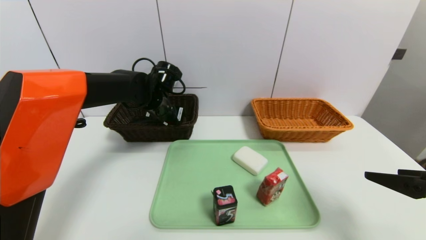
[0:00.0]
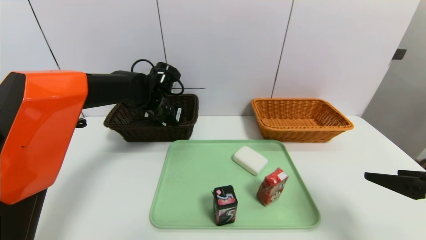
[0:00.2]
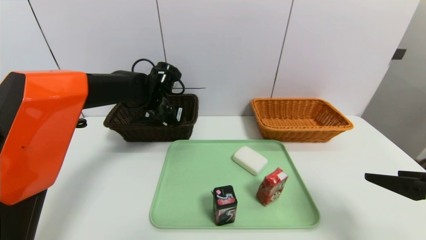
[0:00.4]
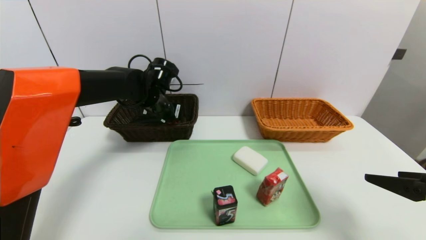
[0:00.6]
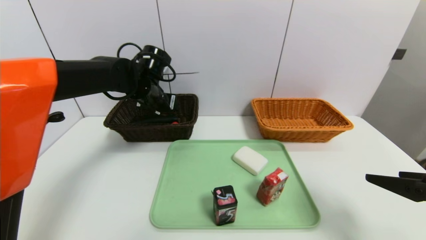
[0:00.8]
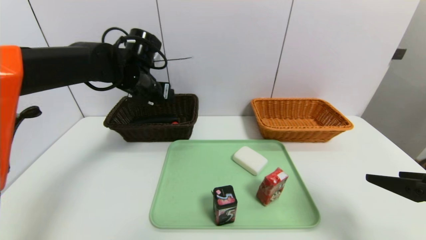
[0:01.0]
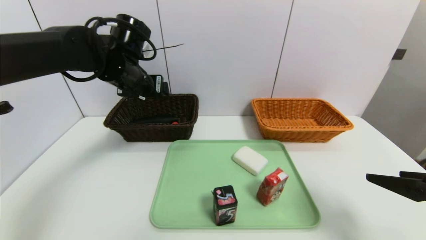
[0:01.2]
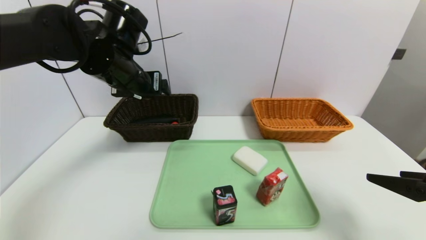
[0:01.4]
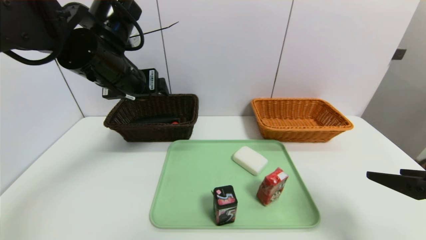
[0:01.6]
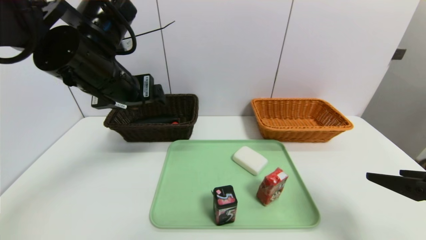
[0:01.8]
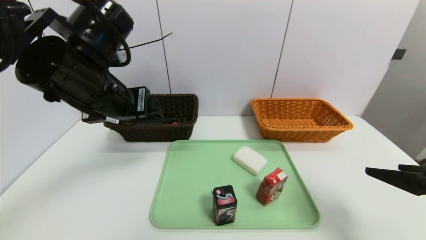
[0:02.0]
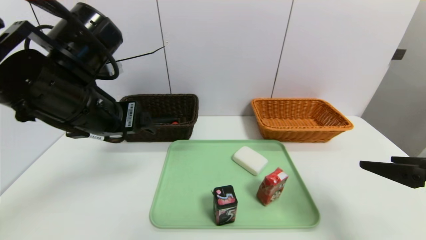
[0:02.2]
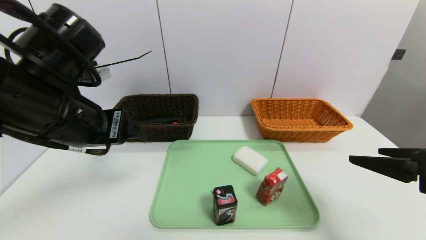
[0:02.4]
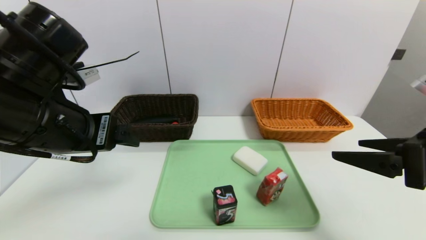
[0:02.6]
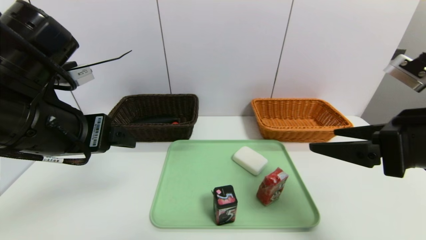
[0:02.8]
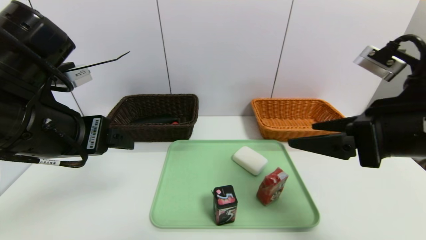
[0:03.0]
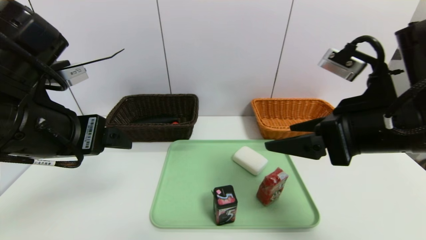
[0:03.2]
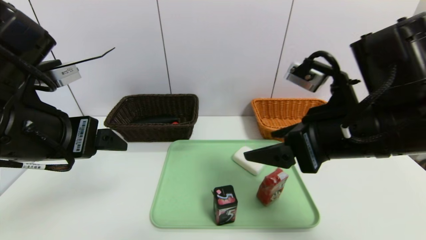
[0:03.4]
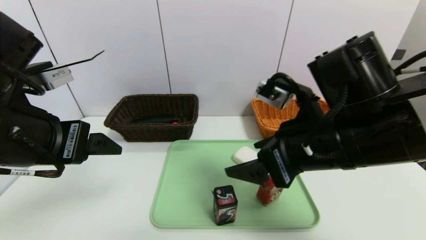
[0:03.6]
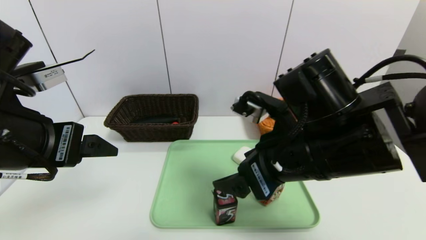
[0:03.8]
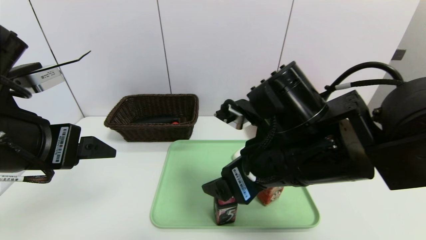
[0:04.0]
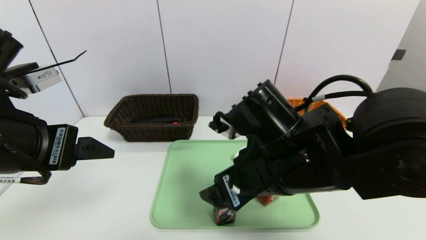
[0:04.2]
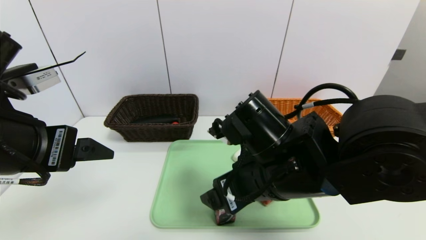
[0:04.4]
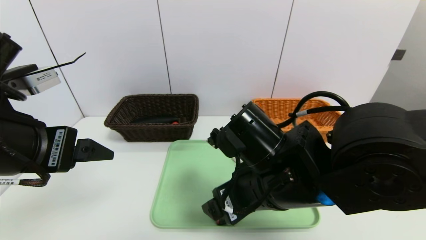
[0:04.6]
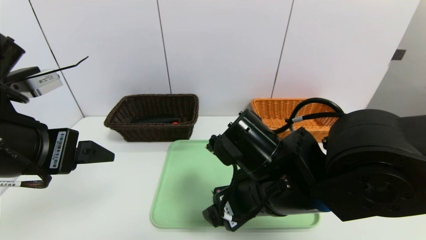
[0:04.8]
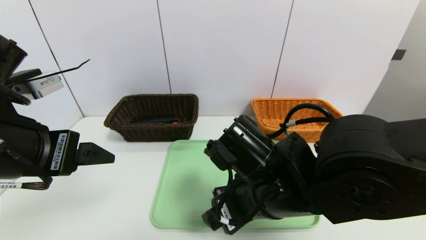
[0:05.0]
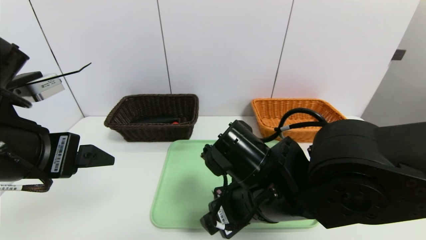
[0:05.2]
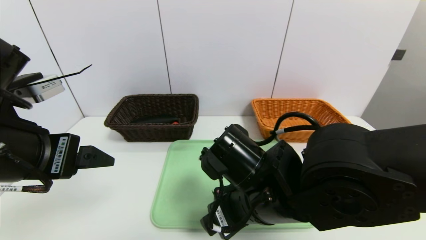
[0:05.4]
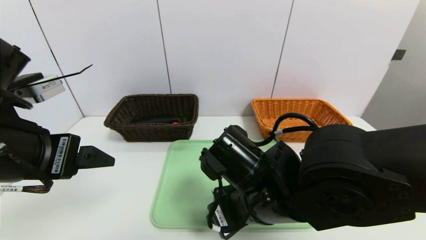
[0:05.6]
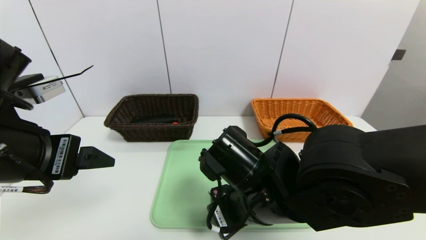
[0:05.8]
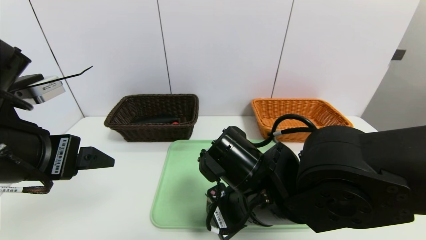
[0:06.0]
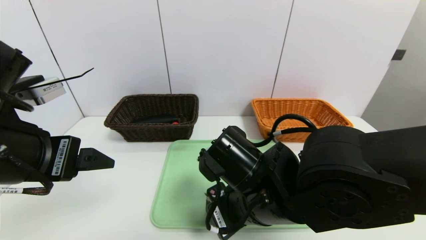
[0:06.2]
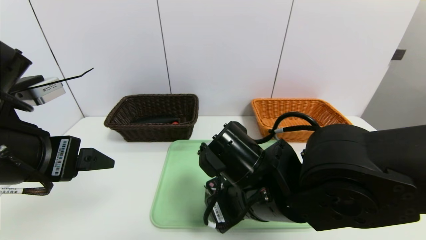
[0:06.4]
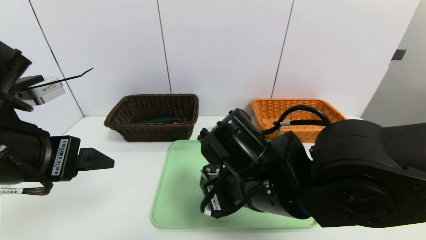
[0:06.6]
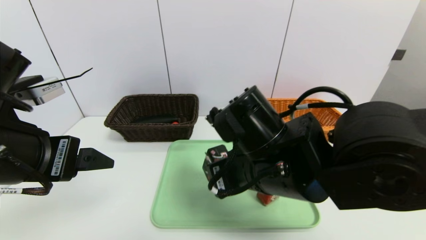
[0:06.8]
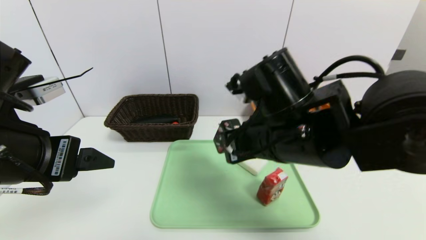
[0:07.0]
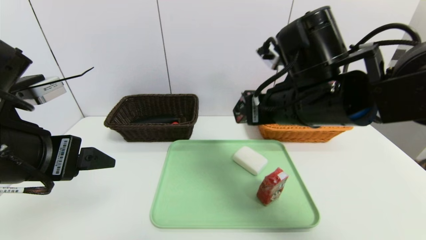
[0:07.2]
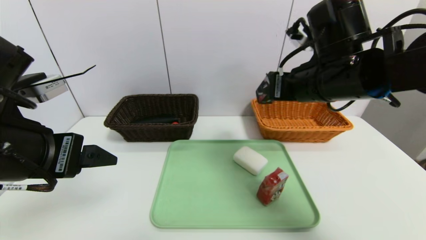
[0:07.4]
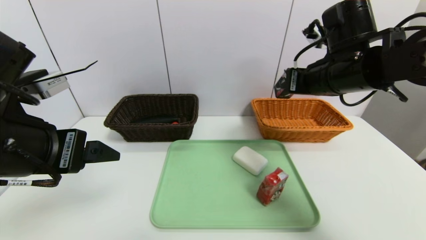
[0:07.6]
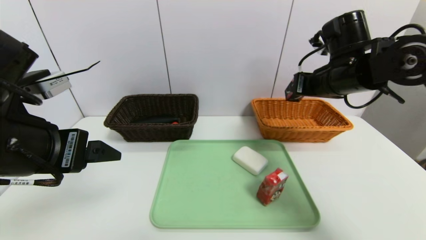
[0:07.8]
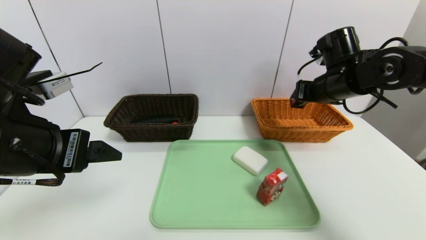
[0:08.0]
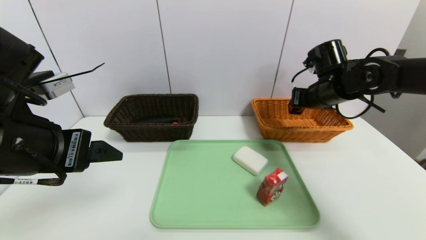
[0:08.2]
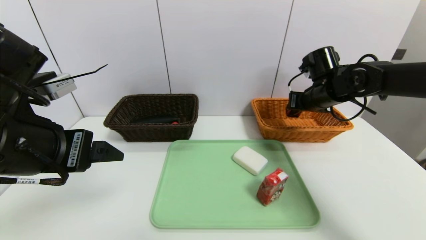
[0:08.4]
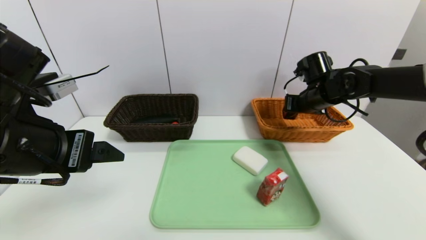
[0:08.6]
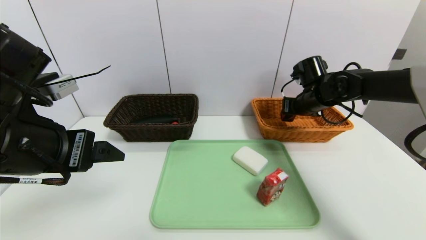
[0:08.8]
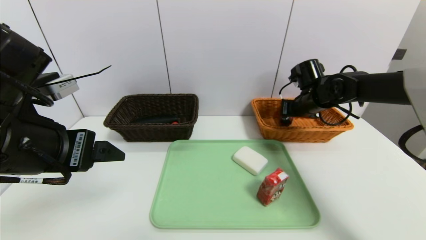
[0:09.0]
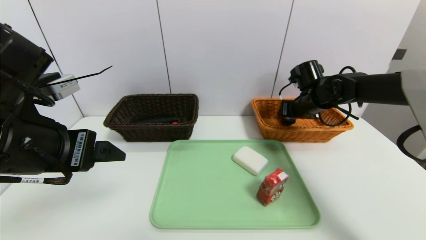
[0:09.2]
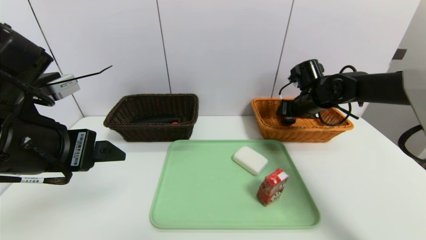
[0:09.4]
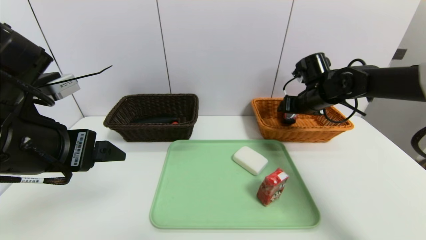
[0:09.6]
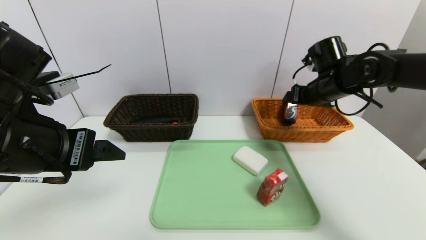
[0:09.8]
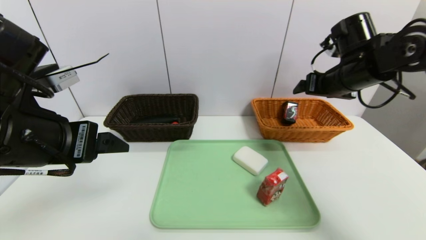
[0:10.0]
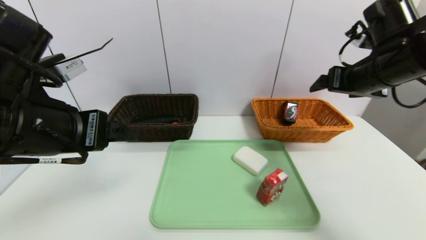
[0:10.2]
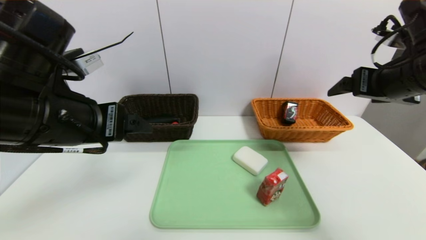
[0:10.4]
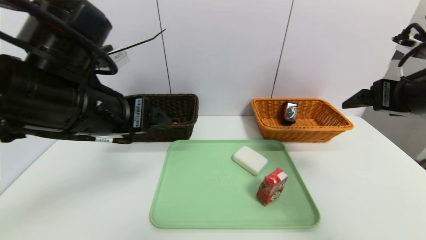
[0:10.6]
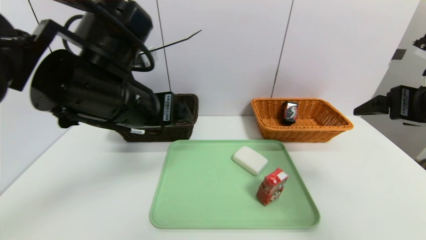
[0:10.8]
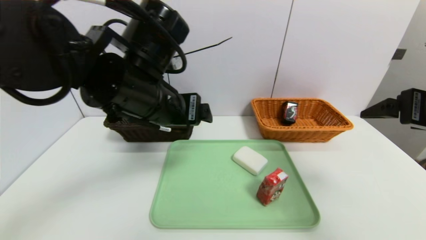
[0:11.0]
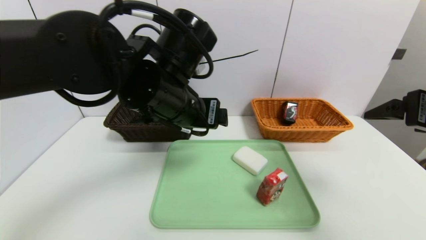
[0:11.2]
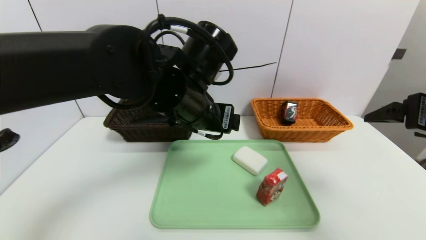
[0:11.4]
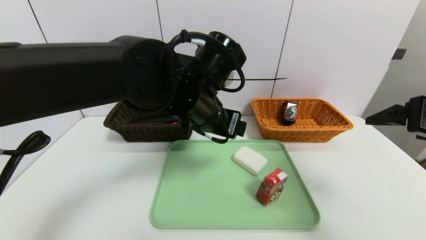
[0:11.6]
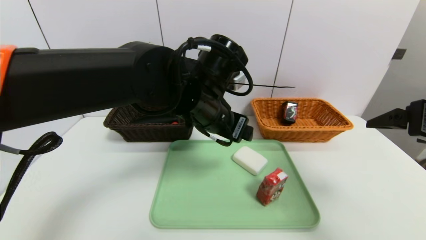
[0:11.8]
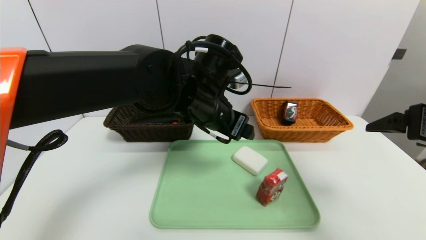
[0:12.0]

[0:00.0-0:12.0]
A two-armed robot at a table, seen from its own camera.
Task of the whole recording: place the food in the right basket with the right gripper, and place the non food items in the left basket with the left gripper.
Step, 0:01.2 to 0:10.0: Grasp the square chewing gum and put it in the right basket.
0:00.0 to 0:01.6: The left gripper is displaced upward and backward by roughly 15 cm, and opens its fingers.
0:01.6 to 0:03.0: The right gripper is displaced to the left, upward and forward by approximately 15 cm, while the left gripper shifts some 10 cm backward.
0:03.0 to 0:04.4: The right gripper goes approximately 15 cm to the left and downward.
0:04.4 to 0:06.0: The right gripper closes its fingers.
0:06.0 to 0:07.6: The right gripper heads to the right, forward and upward, covering about 25 cm.
0:07.6 to 0:09.0: The right gripper travels forward and downward by approximately 15 cm.
0:09.0 to 0:10.4: The right gripper shifts some 20 cm backward and upward, and opens up.
0:10.4 to 0:12.0: The right gripper goes roughly 10 cm backward. The left gripper heads to the right and forward, covering some 20 cm.

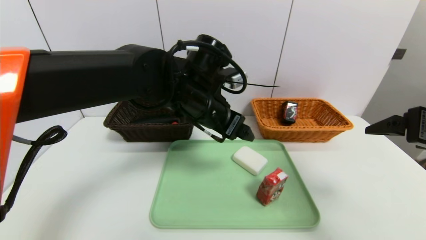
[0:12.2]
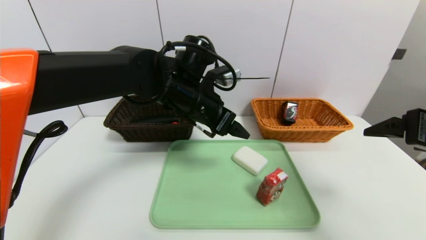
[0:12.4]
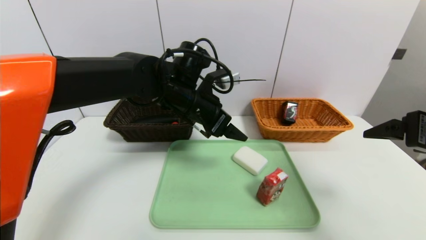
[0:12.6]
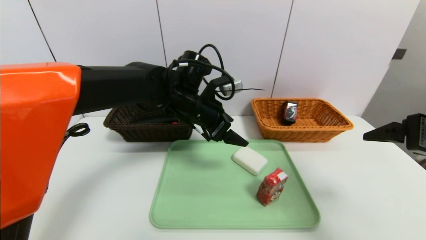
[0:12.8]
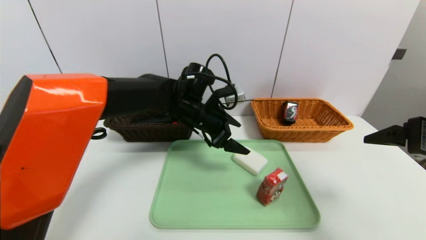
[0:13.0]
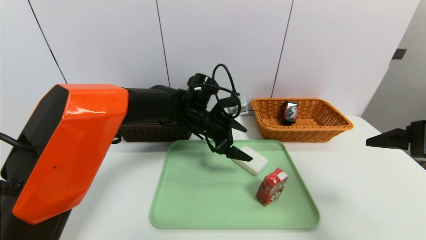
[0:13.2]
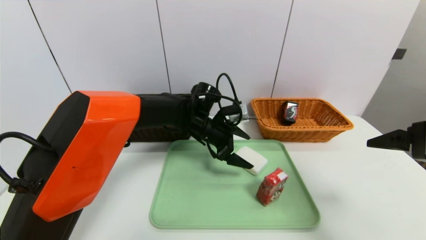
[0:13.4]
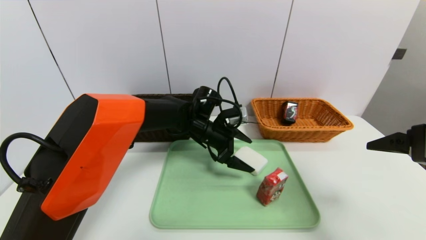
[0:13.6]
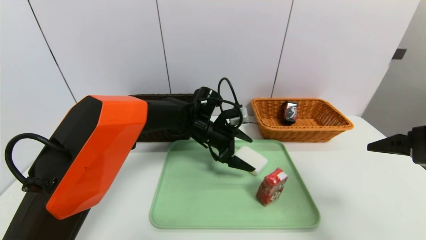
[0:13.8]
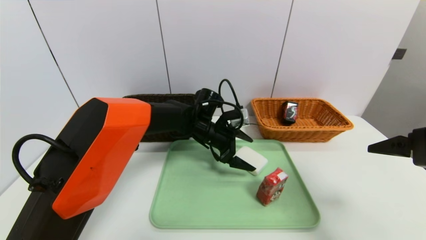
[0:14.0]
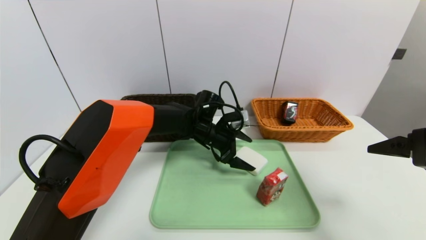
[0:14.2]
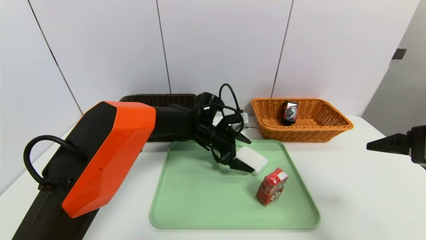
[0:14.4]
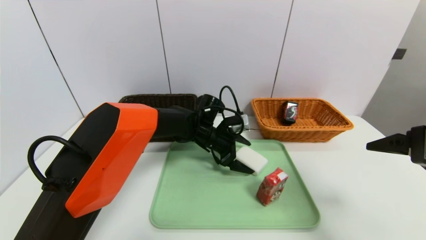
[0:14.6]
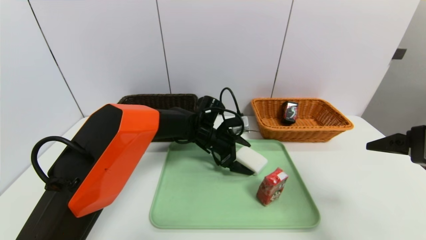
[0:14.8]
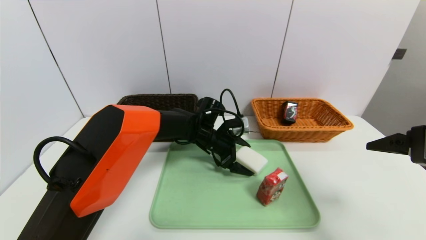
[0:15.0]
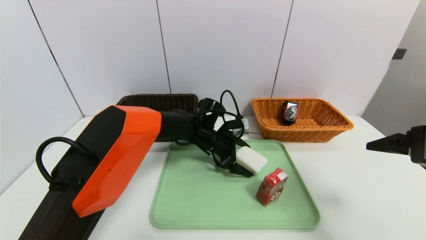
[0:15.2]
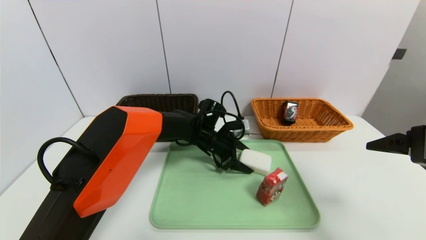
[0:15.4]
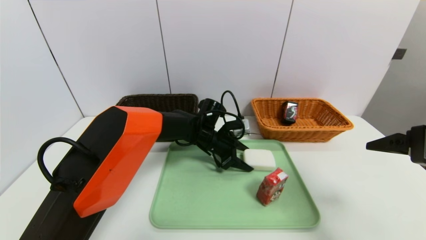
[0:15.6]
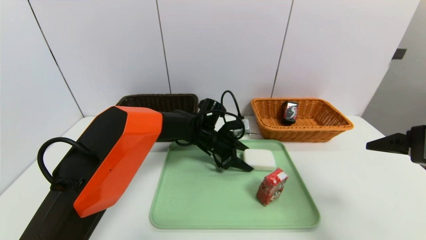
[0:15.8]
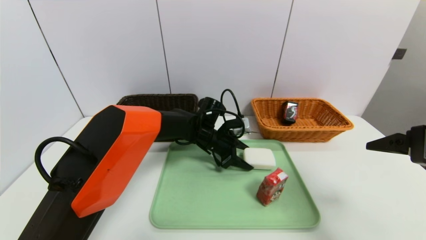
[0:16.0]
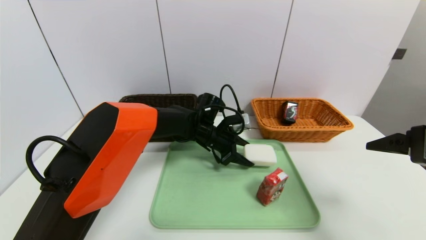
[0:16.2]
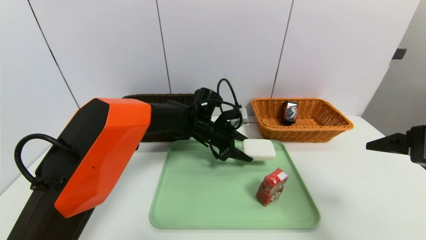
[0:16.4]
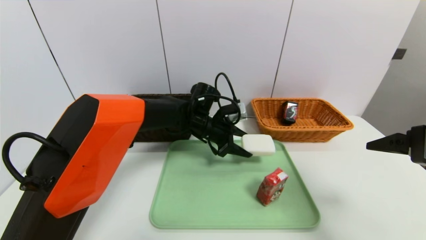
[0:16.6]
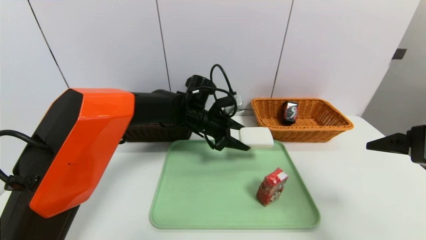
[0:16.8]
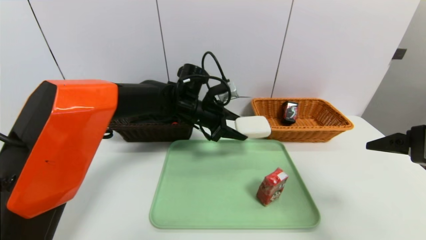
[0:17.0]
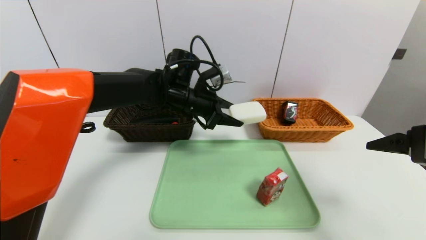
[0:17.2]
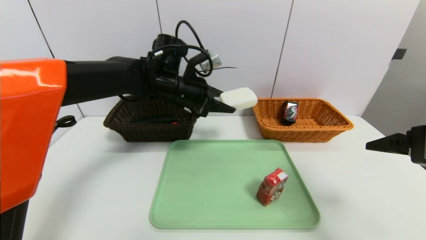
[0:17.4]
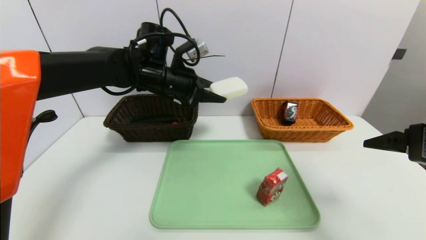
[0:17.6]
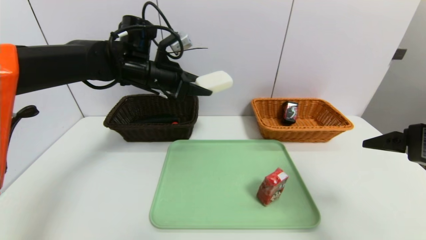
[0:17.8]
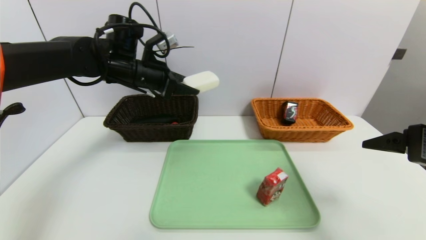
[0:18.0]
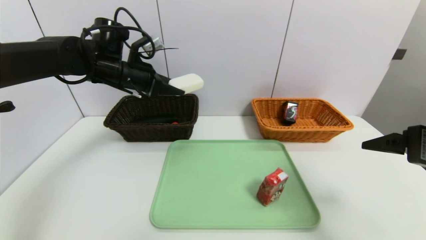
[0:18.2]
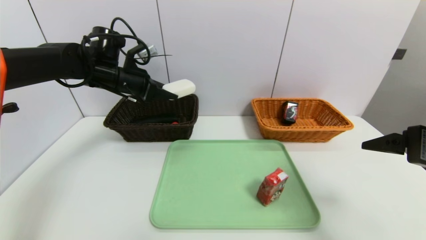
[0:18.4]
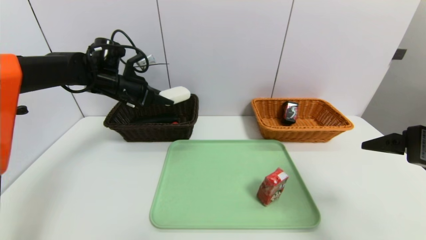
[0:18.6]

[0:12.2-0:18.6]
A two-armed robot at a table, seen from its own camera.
Task of the whole recording: place the food in the right basket with the right gripper, and place the non food items in the left basket with the left gripper.
0:12.2 to 0:13.8: The left gripper heads downward and forward, covering about 15 cm.
0:13.8 to 0:15.4: The left gripper closes.
0:15.4 to 0:17.0: The left gripper goes about 10 cm upward.
0:17.0 to 0:18.6: The left gripper travels to the left by about 20 cm.
